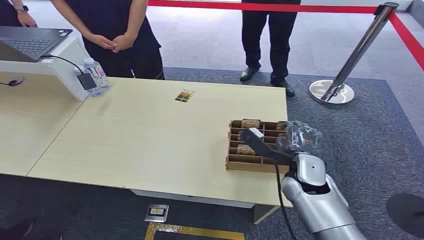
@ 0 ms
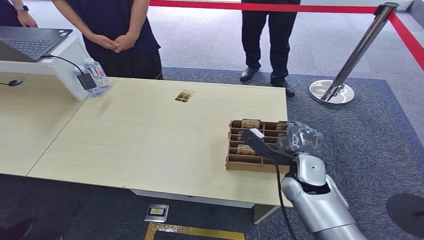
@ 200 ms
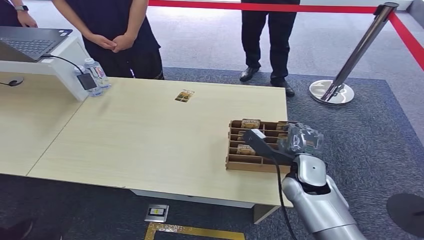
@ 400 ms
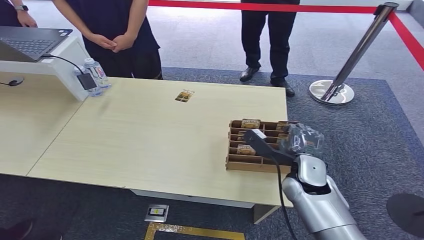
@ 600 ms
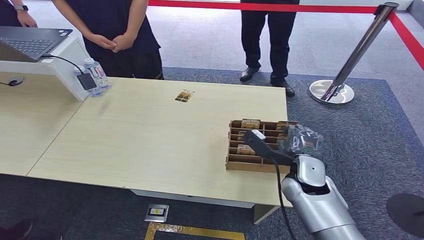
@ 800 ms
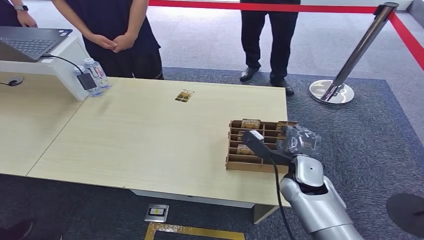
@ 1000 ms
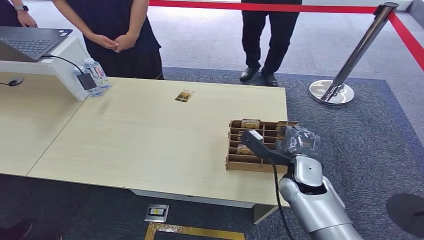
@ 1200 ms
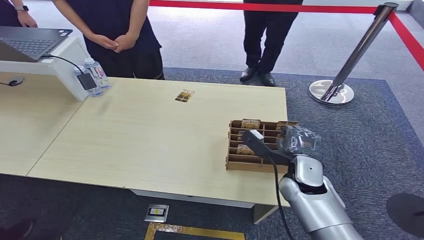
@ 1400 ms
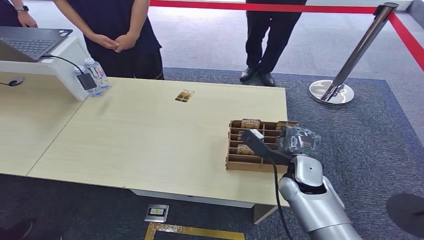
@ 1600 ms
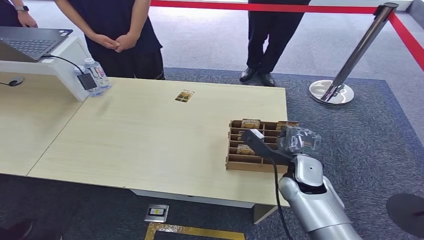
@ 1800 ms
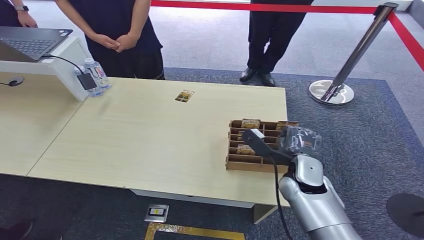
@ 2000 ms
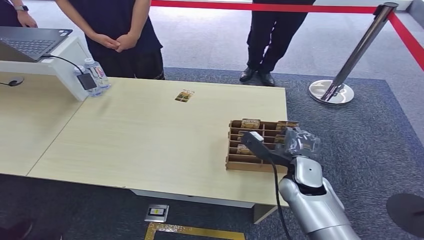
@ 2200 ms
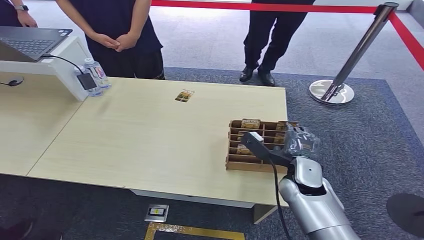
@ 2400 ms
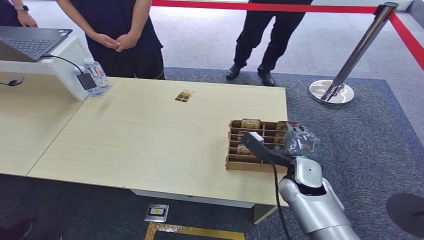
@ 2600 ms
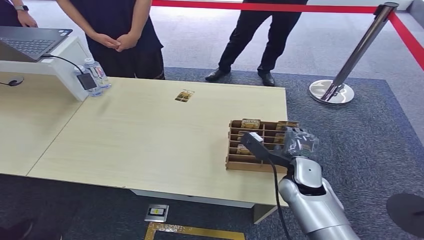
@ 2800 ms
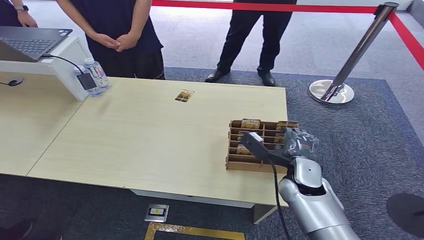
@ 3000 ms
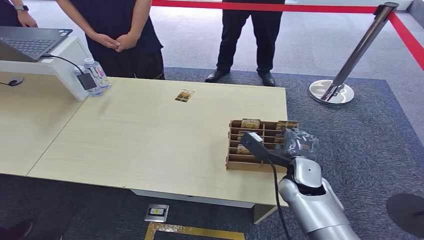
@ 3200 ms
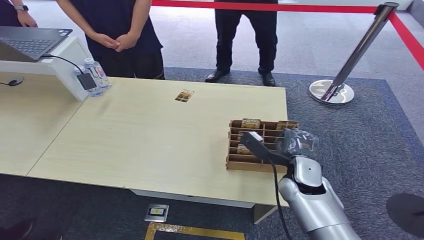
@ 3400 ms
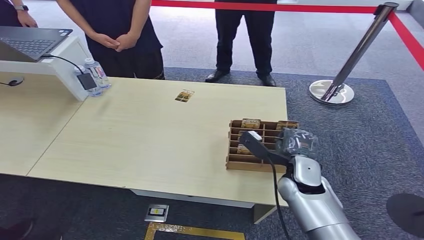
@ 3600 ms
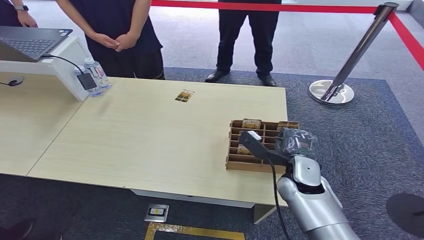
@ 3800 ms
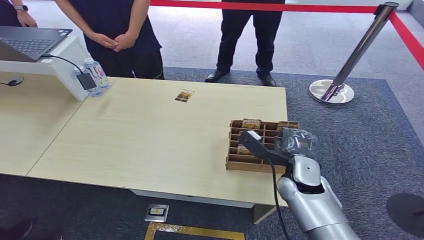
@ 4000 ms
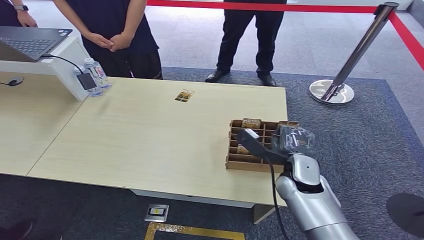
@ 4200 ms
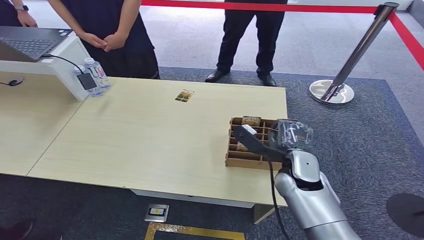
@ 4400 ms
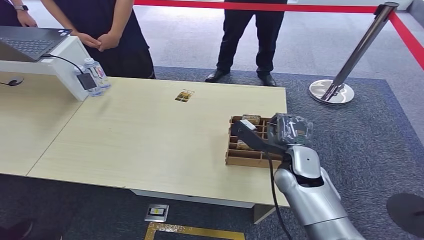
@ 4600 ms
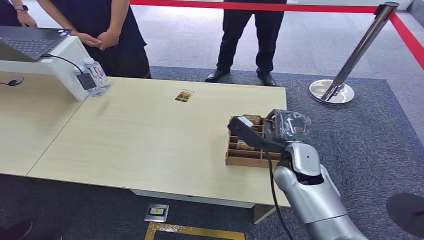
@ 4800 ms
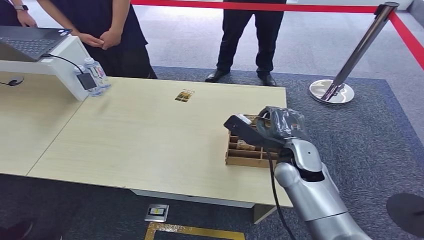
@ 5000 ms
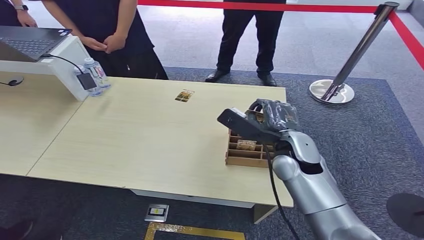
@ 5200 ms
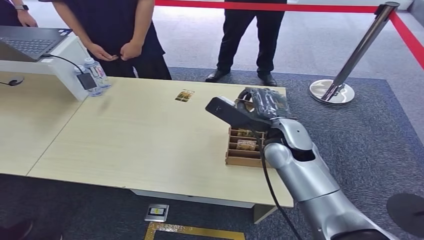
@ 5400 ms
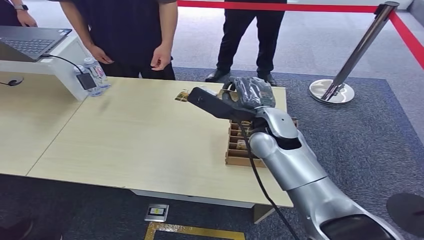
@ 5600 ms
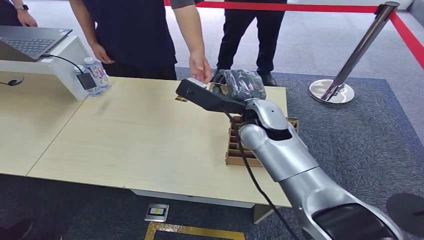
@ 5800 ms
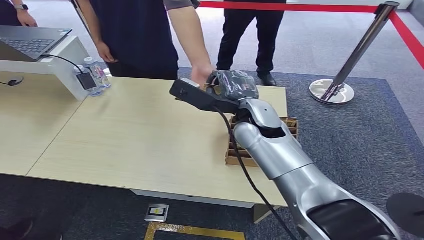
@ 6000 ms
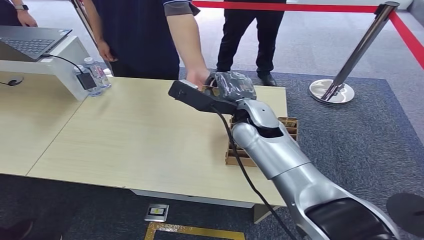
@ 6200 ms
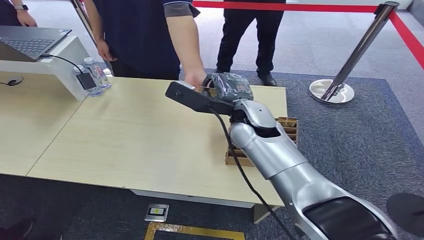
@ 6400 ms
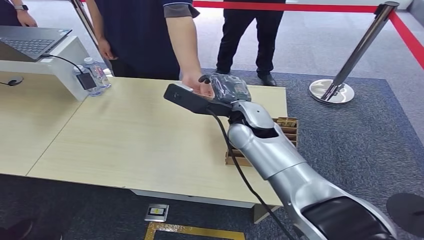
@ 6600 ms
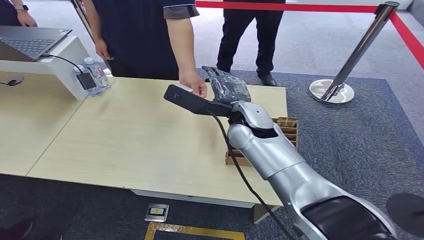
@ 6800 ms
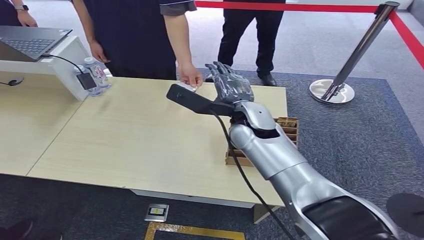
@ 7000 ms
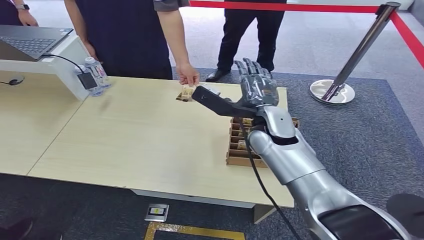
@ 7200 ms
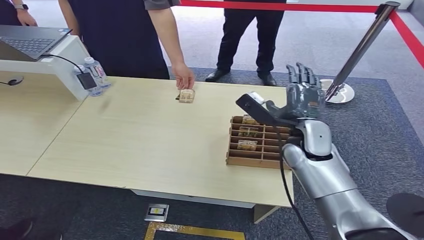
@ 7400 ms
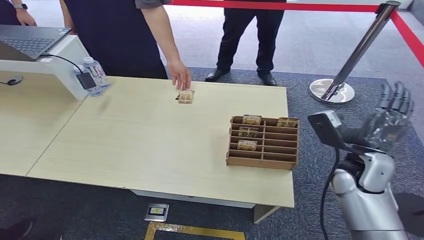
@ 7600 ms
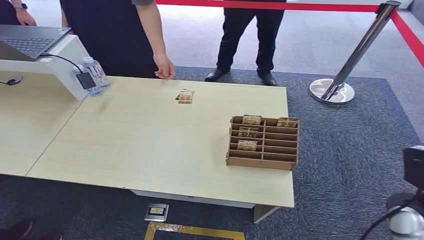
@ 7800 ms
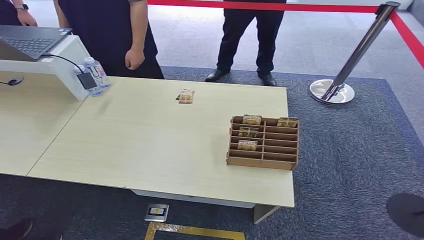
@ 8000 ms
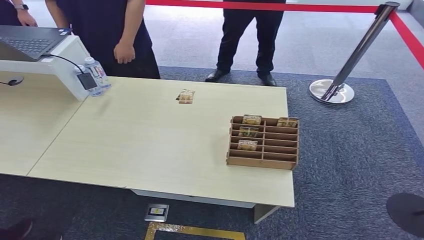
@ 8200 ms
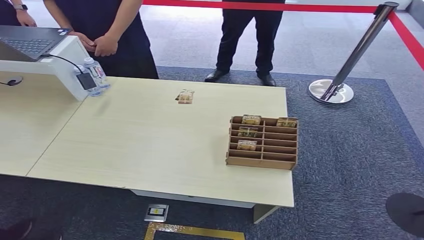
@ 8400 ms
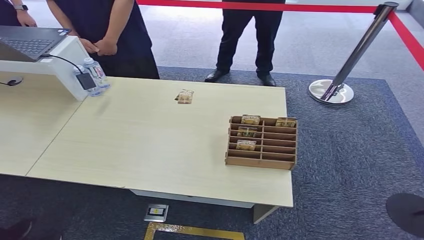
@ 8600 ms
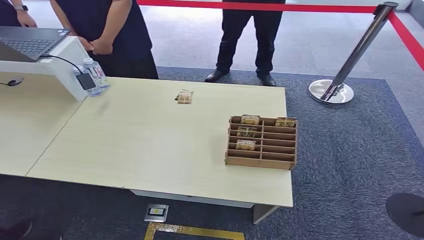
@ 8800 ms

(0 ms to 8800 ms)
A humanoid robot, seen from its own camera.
Step, 0 ms - 5000 ms: Pick up the key card from the card box.
Step, 5400 ms - 8600 ms: Hand the key card to the target.
1400 ms - 3000 ms: Both hands stay put.
3000 ms - 4400 ms: There are only small adjustments of the hands.
4400 ms - 5800 ms: The right hand shifts some 20 cm upward, to the left and forward.
5800 ms - 7400 ms: The right hand moves to the right and downward, some 10 cm.
7400 ms - 8800 ms: The right hand shifts some 50 cm backward, downward and to the right.
